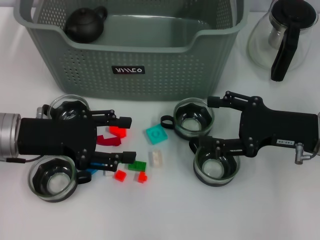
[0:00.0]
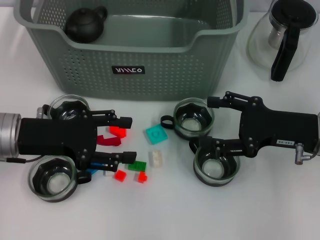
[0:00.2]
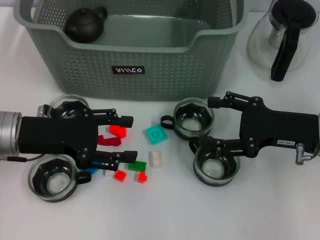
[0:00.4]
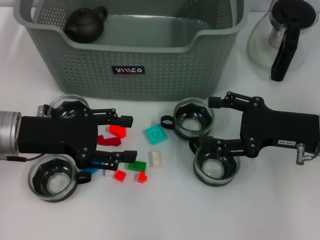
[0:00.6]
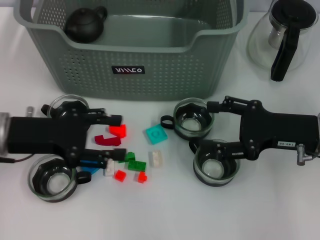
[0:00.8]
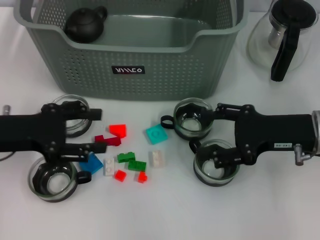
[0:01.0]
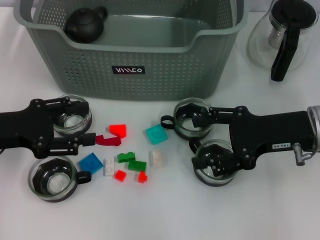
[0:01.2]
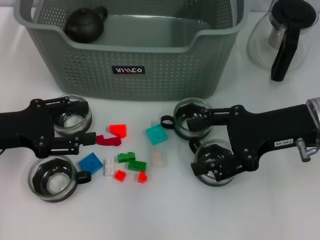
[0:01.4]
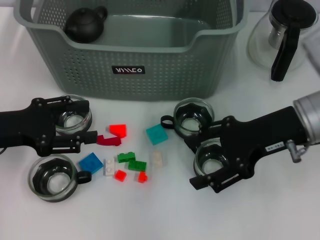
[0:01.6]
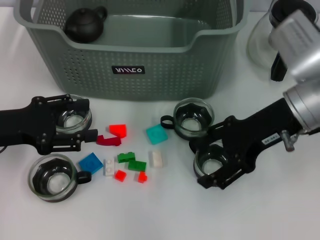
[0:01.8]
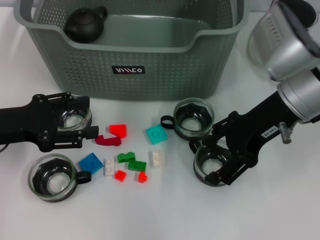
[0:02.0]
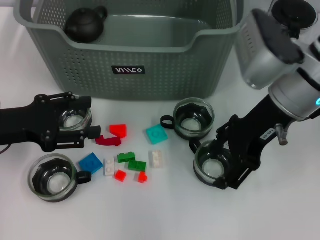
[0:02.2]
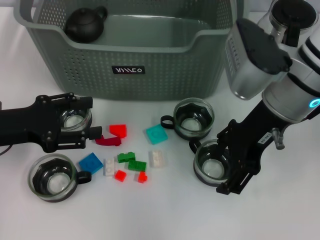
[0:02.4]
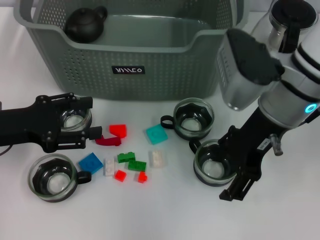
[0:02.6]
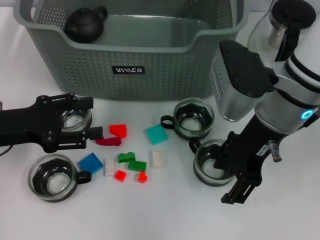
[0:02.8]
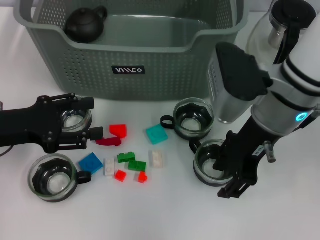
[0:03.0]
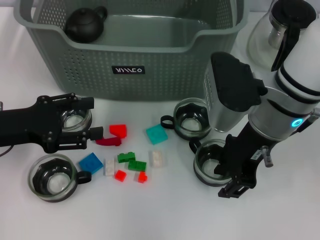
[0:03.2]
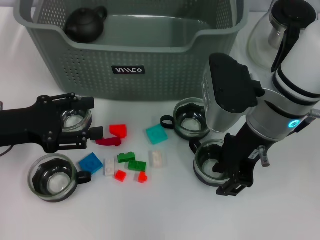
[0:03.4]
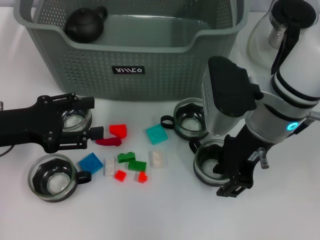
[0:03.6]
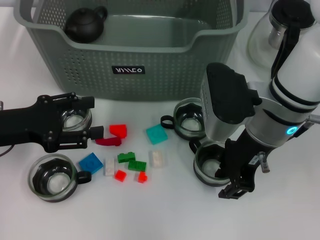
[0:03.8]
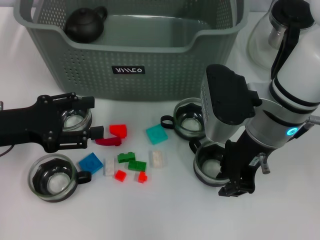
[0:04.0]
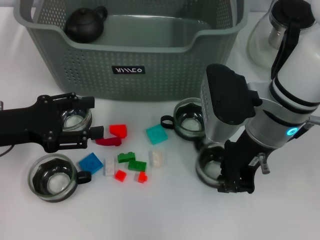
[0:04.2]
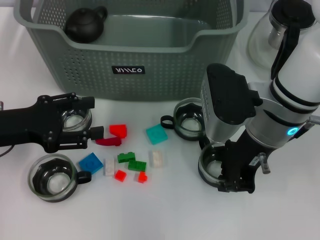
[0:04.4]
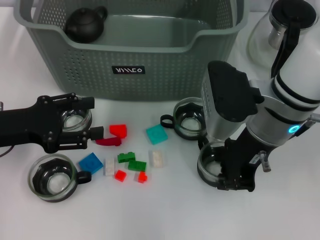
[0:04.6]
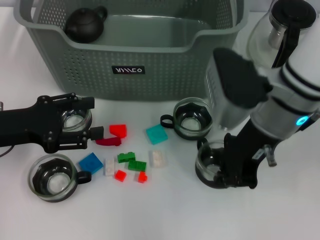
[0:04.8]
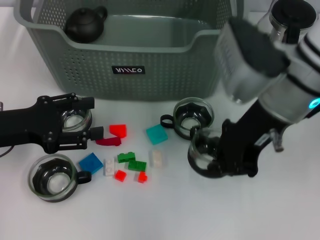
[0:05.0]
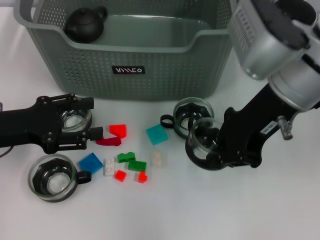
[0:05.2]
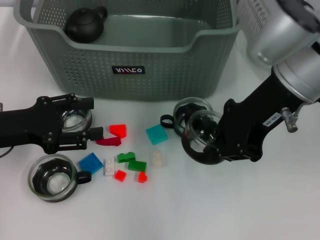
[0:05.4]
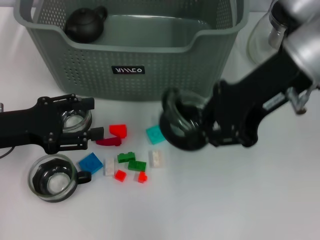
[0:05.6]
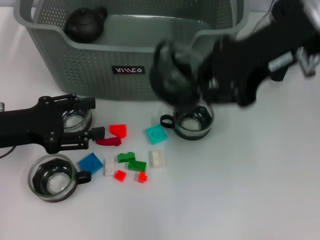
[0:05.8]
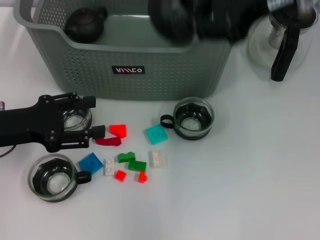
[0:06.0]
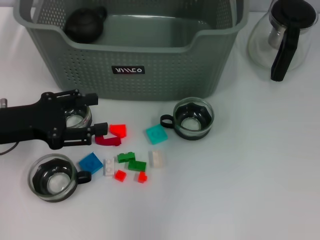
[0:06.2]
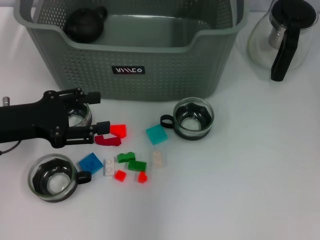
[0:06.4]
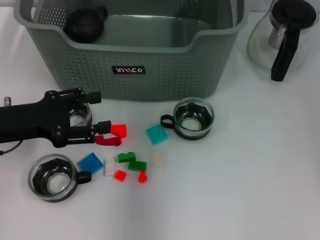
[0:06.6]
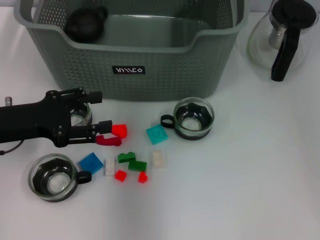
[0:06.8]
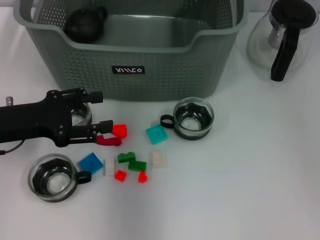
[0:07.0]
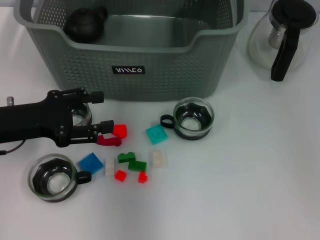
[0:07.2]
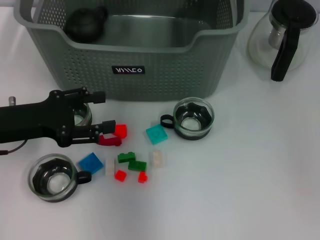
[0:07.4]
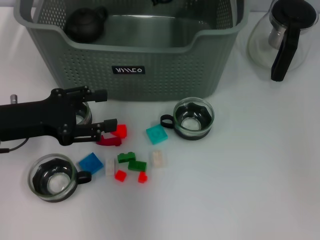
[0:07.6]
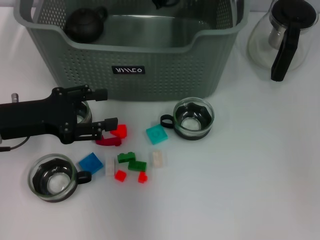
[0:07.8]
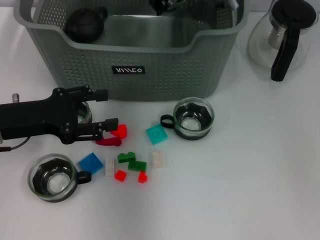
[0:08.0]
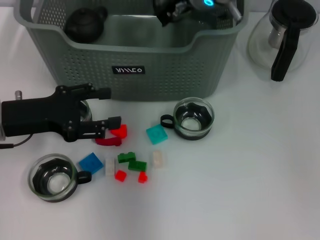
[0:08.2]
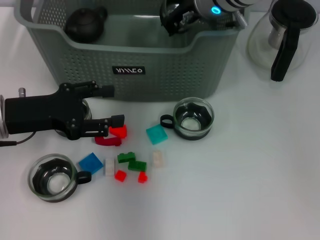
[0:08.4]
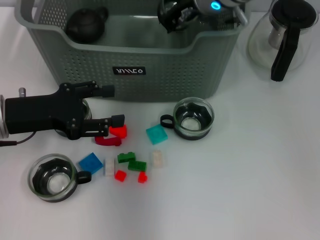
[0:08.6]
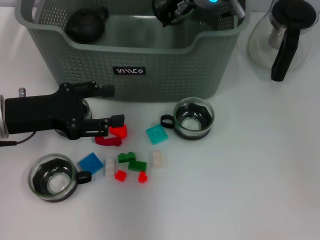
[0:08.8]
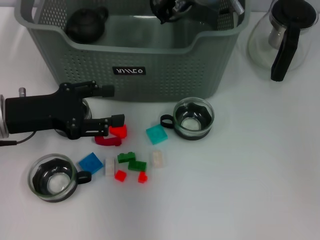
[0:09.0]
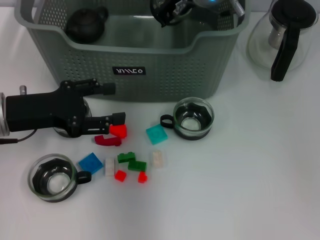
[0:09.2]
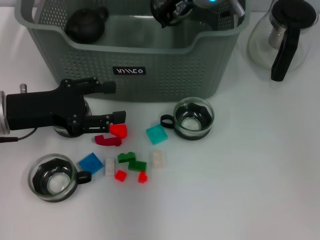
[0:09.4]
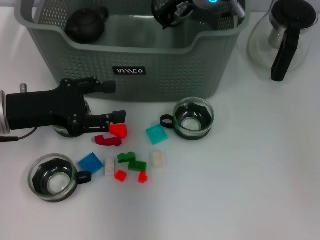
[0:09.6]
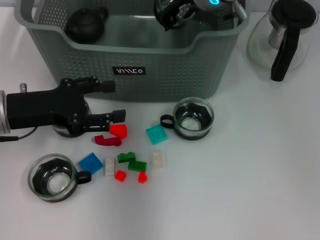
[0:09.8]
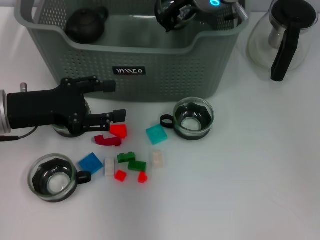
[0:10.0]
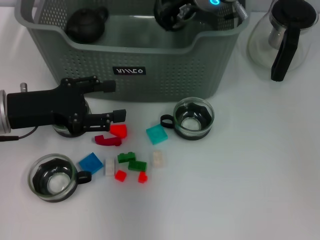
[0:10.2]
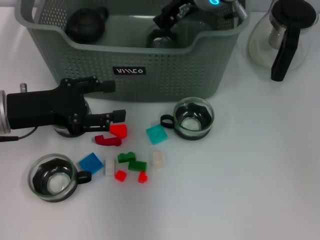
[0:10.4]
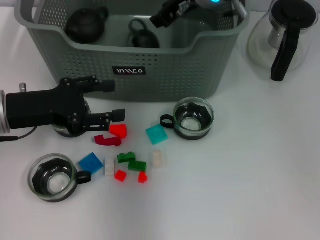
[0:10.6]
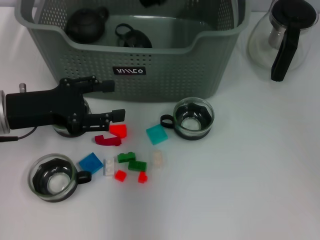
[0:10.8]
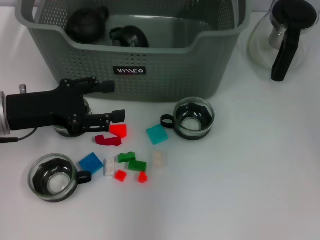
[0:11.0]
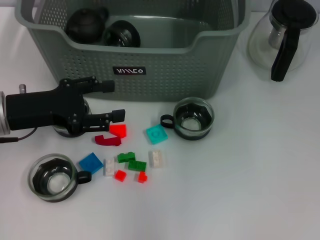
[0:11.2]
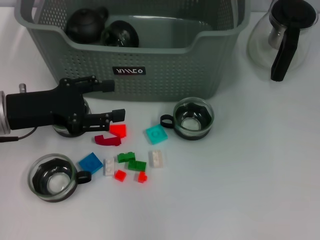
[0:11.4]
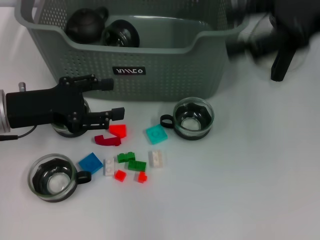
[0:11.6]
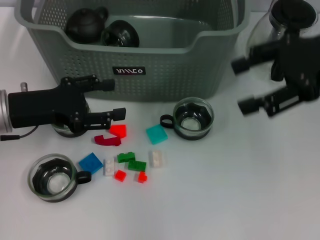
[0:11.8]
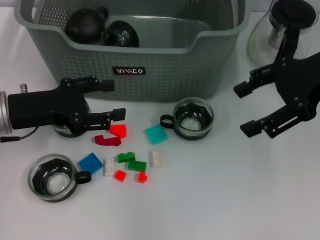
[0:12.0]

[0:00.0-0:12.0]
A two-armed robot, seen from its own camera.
Task of the whole recording: pick up the teacup on the table and place it into the storage bin, pick up the block on the table and place it into the storage bin.
Step, 0.0 to 4.4 s: Grasp the cup with right gripper.
Step, 4.6 to 10.8 s: Place the cup in the storage box with right gripper.
0.0 to 1.6 s: The right gripper is displaced upward by about 5 cm; the left gripper heads to the left, covering about 5 cm.
1.6 to 3.0 s: The right gripper goes roughly 5 cm to the left.
3.0 to 4.4 s: The right gripper closes.
4.4 to 6.0 s: The right gripper moves upward, about 15 cm.
6.0 to 7.6 s: The right gripper moves to the left, forward and downward, roughly 20 cm.
7.6 to 9.0 s: There are only small adjustments of the grippers.
9.0 to 10.4 s: Neither gripper changes place.
10.4 to 12.0 s: The right gripper goes roughly 20 cm to the right and backward, and opens.

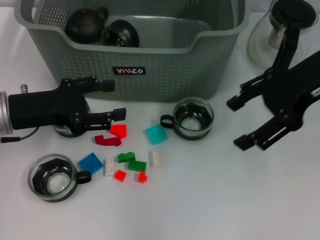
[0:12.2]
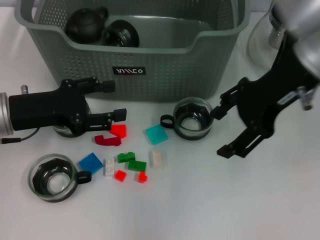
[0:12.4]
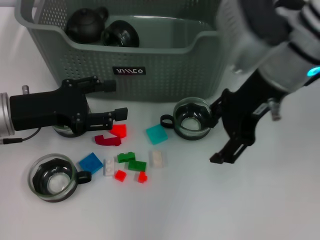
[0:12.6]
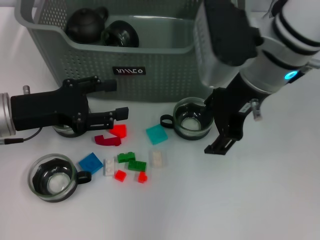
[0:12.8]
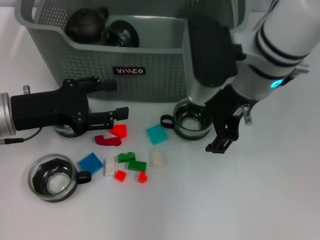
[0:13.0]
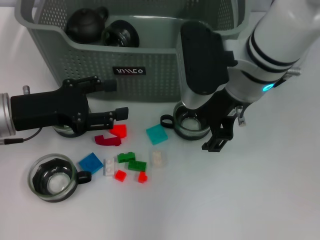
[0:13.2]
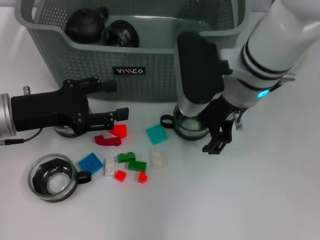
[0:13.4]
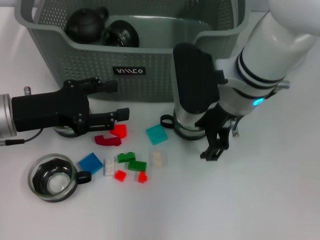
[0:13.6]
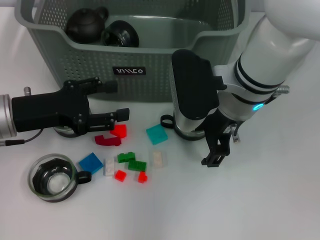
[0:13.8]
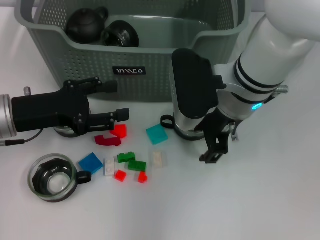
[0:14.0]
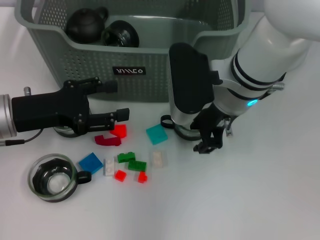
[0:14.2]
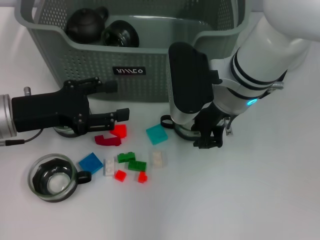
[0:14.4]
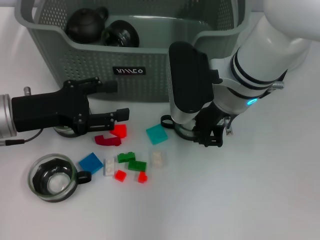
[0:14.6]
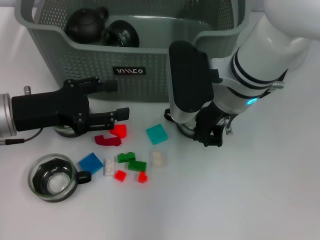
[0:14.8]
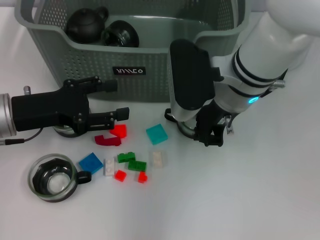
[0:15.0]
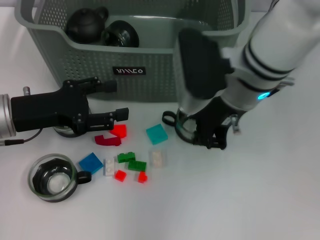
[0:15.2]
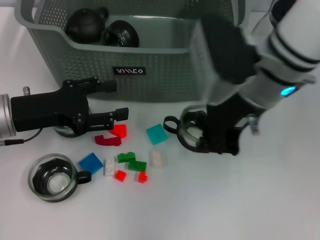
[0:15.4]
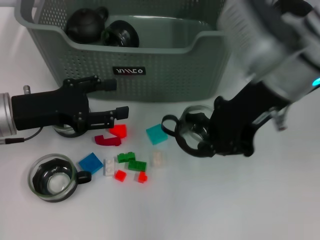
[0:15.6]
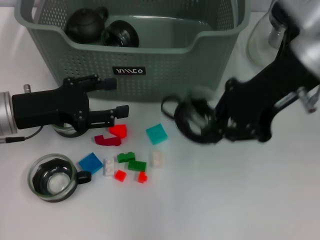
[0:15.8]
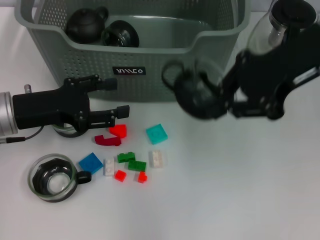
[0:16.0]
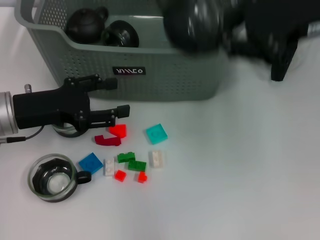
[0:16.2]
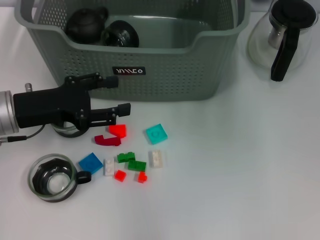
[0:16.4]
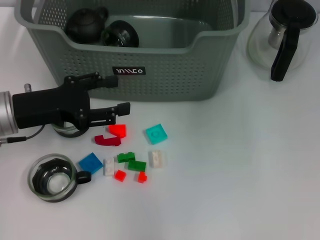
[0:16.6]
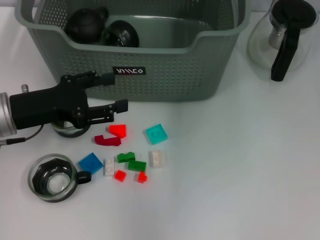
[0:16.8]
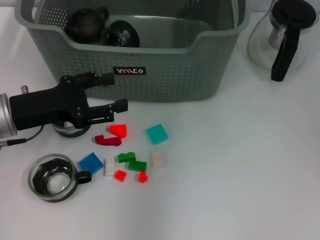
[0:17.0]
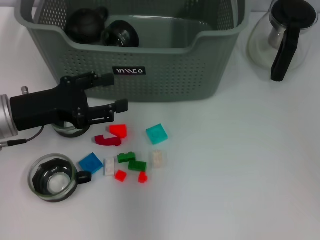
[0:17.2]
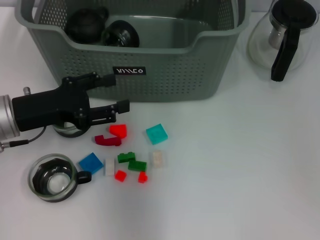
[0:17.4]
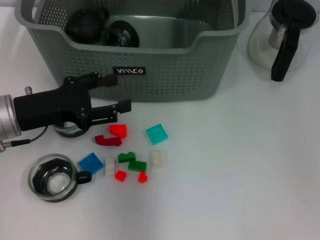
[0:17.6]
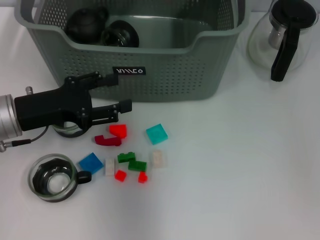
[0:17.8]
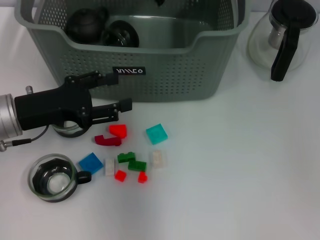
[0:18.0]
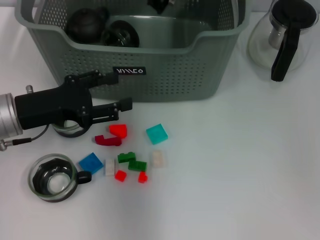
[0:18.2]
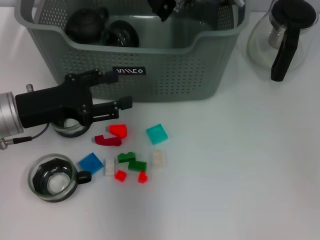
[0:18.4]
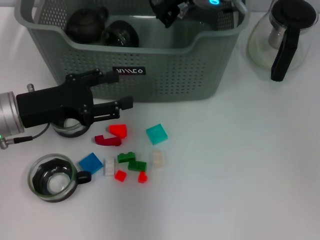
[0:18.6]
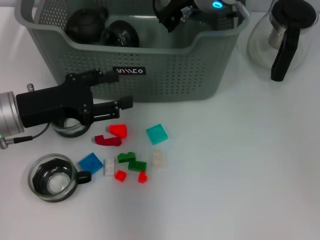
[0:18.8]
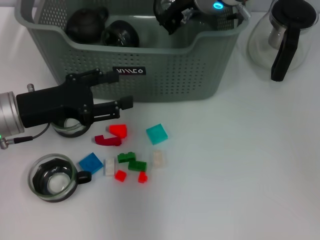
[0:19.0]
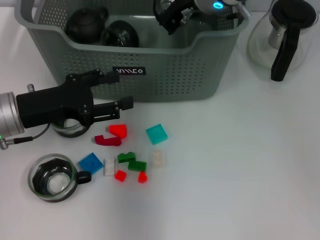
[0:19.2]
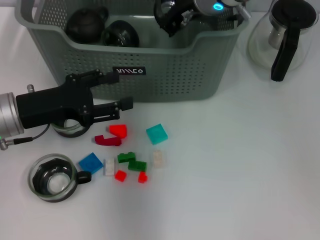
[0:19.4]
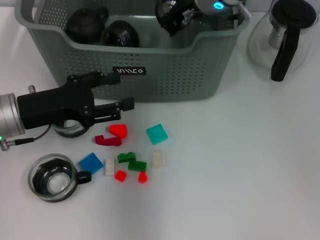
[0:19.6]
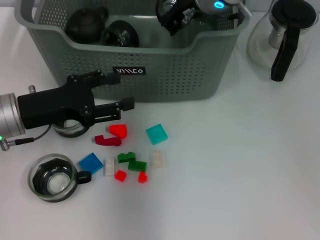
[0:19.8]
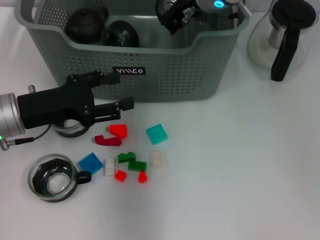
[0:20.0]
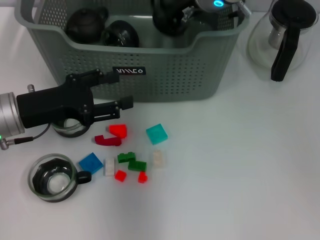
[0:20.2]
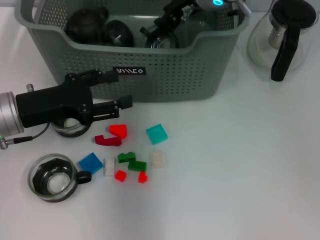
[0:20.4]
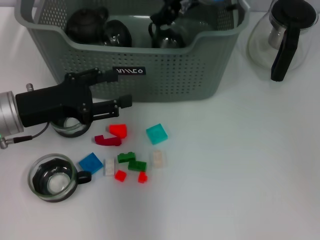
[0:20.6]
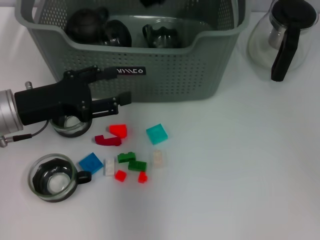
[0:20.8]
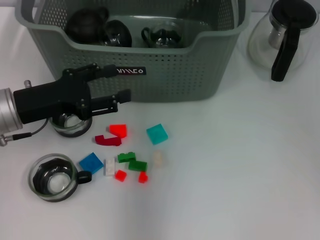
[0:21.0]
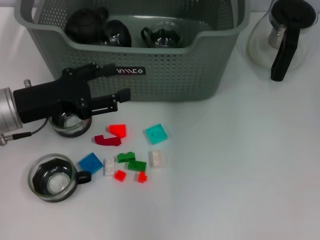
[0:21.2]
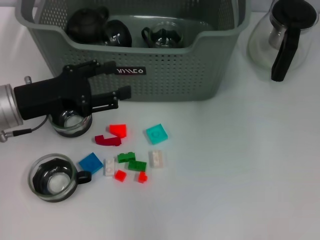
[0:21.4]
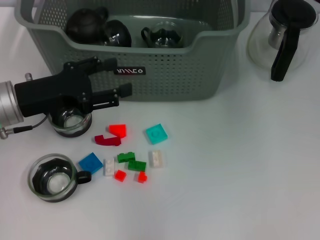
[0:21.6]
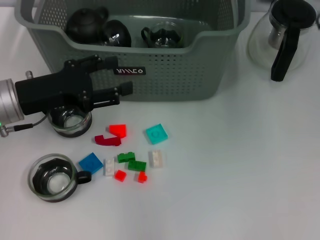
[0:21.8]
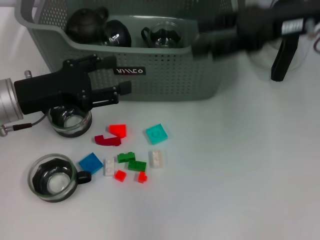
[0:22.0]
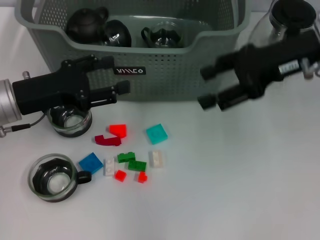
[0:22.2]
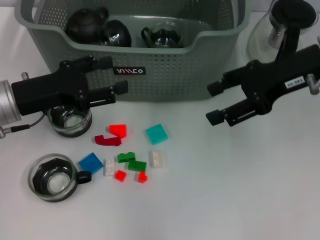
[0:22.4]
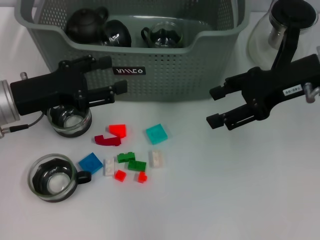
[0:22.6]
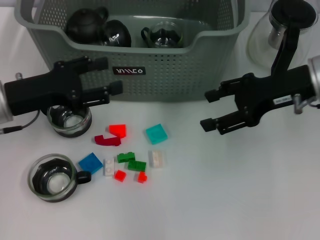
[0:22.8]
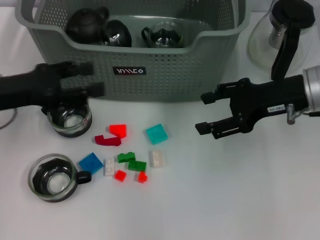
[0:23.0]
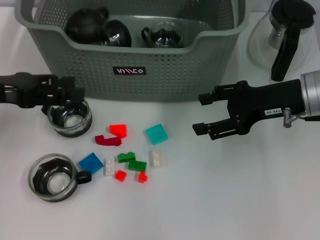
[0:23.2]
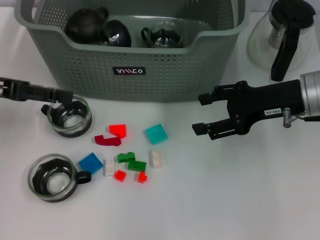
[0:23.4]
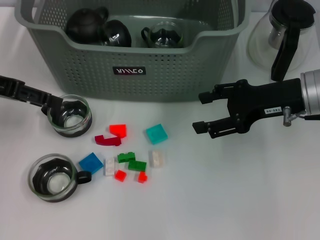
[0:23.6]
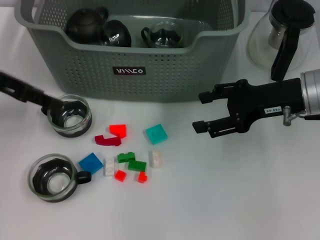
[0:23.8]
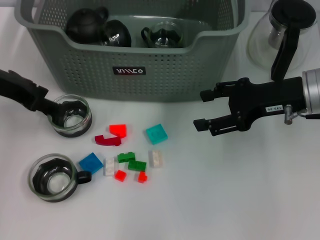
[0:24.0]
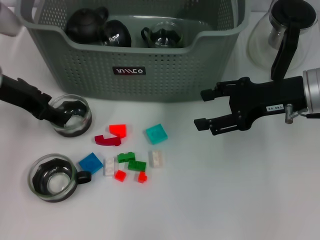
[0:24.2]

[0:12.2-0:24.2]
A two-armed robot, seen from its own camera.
Task of the whole recording: pick up the teacup on the table and place it into the storage bin, pick up the block on the table and place it into the storage bin.
Step, 12.2 to 14.6 s: Grasp the cup with right gripper.
Step, 14.8 to 20.8 s: Place the cup in the storage box with right gripper.
12.2 to 13.8 s: The right gripper shifts some 15 cm to the left and downward.
13.8 to 15.2 s: The right gripper closes.
15.2 to 16.6 s: The right gripper goes about 15 cm upward and to the right.
16.6 to 18.2 s: The right gripper is displaced to the left, downward and forward by approximately 15 cm.
18.2 to 19.8 s: The grippers make only small movements.
19.8 to 21.2 s: The right gripper heads upward, covering about 5 cm, and opens.
21.2 to 22.6 s: The right gripper heads to the right, downward and backward, covering some 15 cm.
22.6 to 24.2 s: The left gripper shifts some 5 cm upward.
